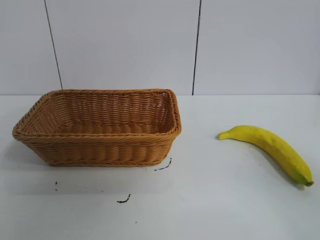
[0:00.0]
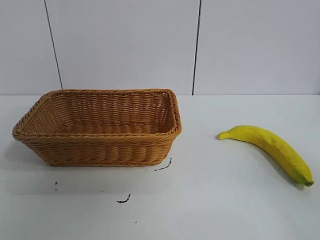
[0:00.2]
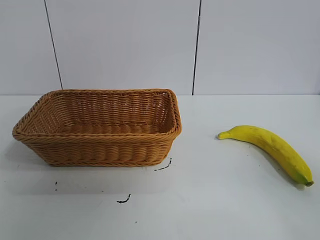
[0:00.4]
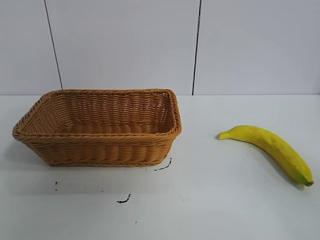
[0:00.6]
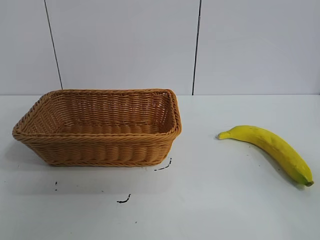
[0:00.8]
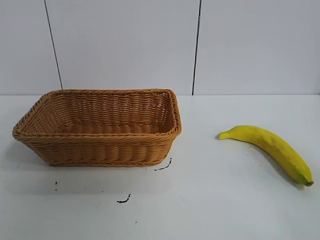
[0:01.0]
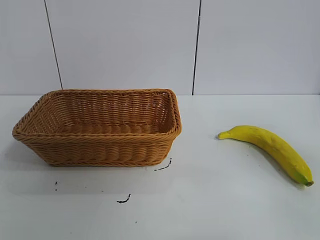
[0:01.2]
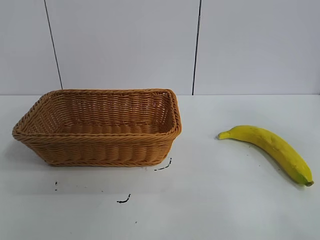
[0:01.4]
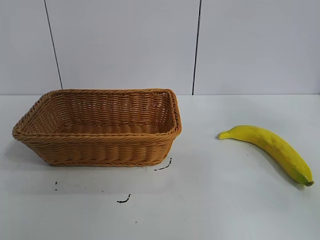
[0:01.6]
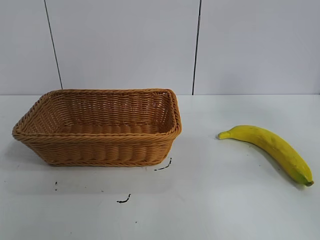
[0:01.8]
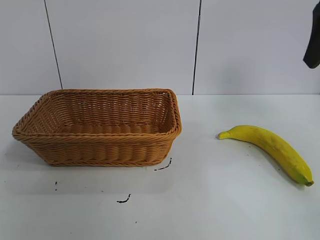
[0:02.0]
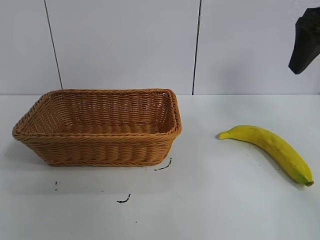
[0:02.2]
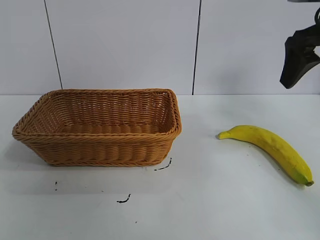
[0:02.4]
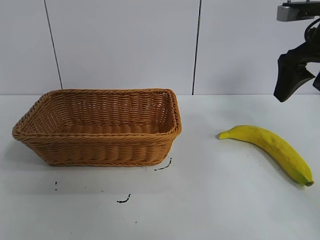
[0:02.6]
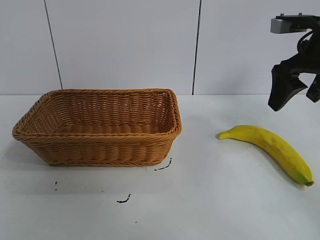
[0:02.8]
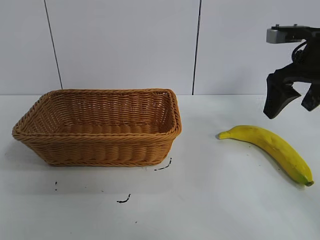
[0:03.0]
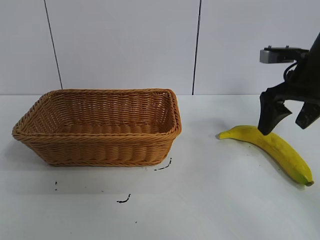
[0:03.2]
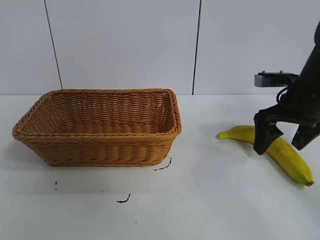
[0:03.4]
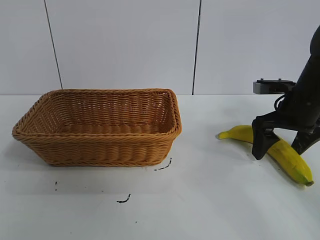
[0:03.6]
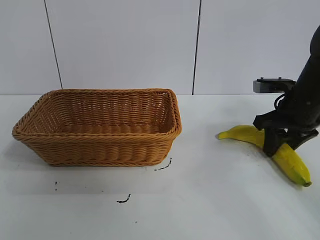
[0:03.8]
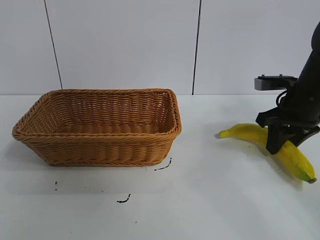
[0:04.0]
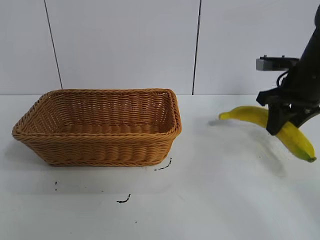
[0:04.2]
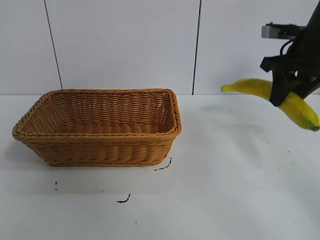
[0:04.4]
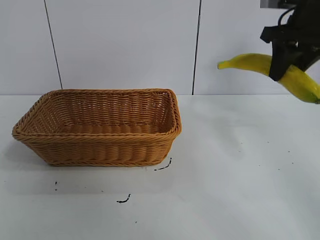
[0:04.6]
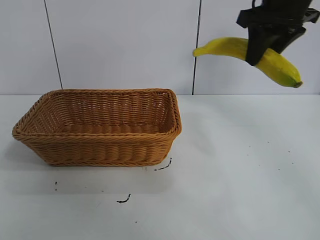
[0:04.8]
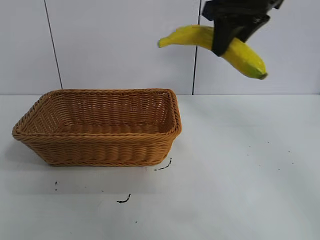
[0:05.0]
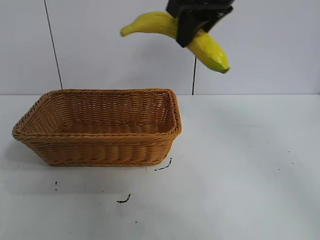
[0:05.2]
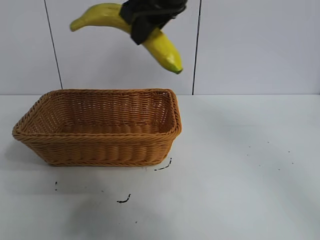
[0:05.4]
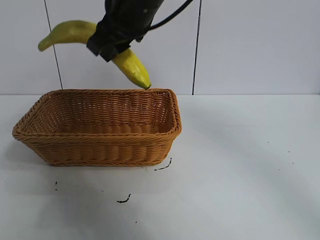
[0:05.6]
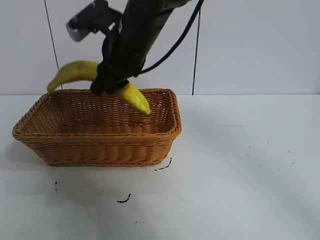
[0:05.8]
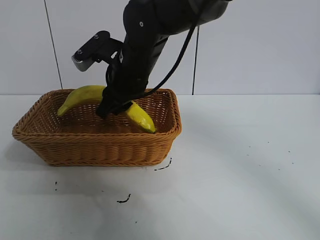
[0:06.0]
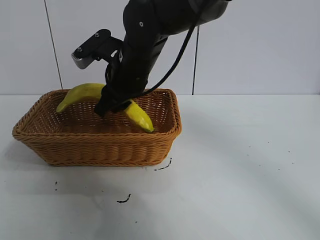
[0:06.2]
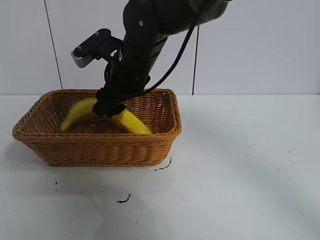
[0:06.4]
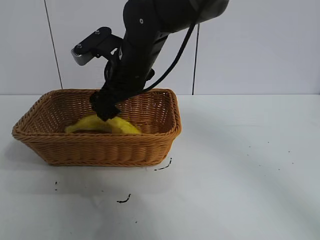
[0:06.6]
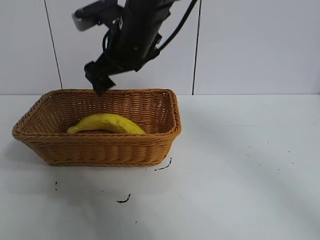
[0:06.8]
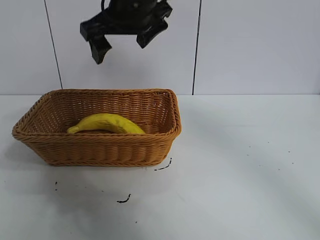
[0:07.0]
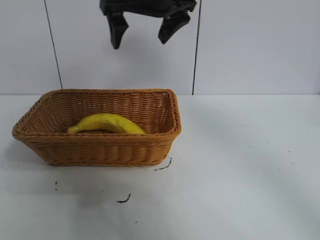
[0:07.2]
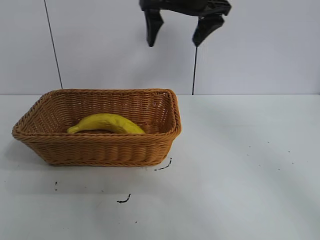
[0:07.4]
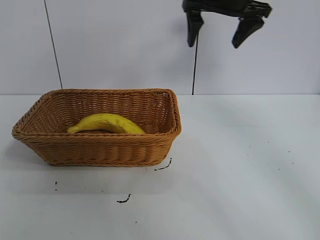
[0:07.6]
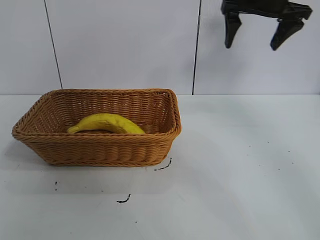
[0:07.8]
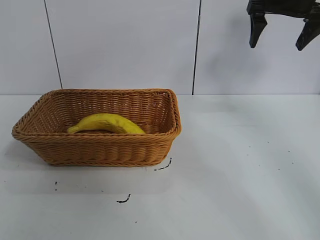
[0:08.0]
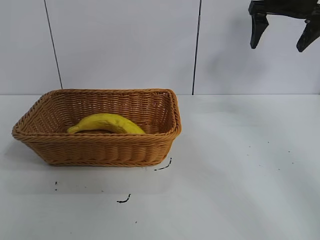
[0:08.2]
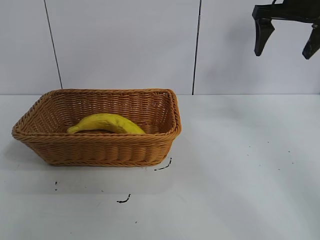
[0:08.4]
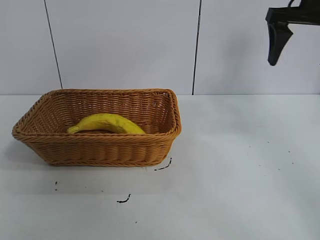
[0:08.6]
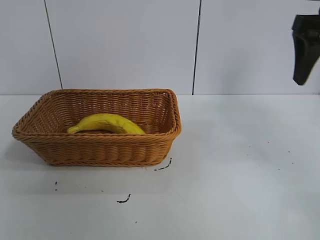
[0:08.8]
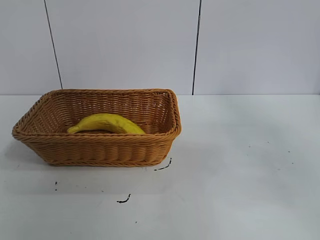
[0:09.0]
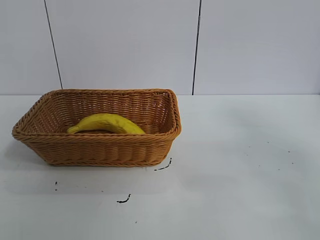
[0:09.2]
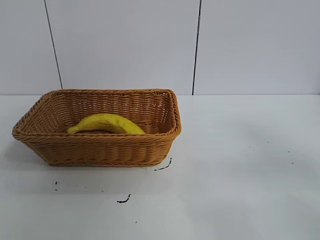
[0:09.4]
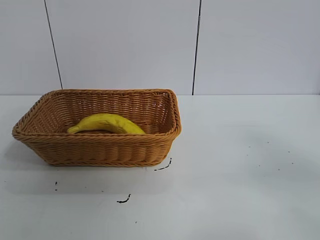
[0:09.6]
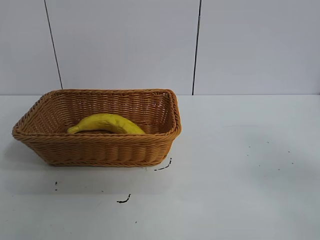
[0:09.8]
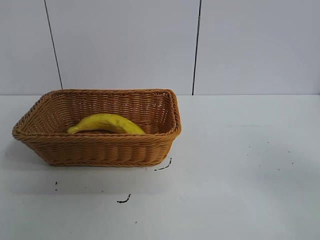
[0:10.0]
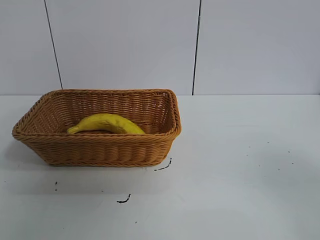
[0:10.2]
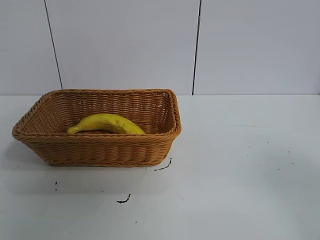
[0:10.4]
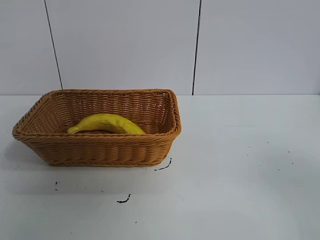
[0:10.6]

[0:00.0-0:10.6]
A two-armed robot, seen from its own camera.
Task of the whole recording: pick up the banana and put it into the basket.
Step, 0:00.0 to 0:03.8: Grasp the banana with right gripper.
Step, 0:04.2 to 0:06.6: Place the banana in the basket with right gripper.
